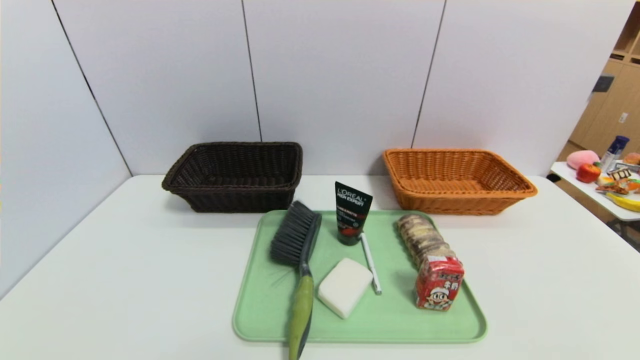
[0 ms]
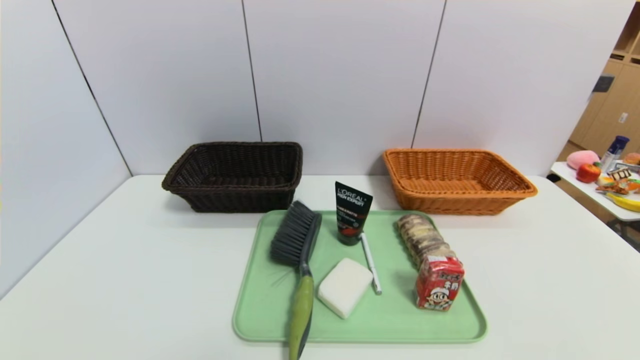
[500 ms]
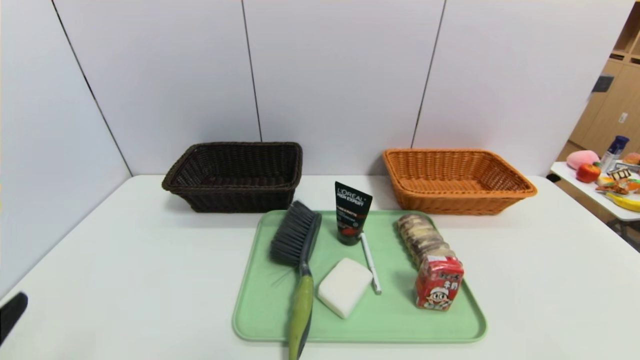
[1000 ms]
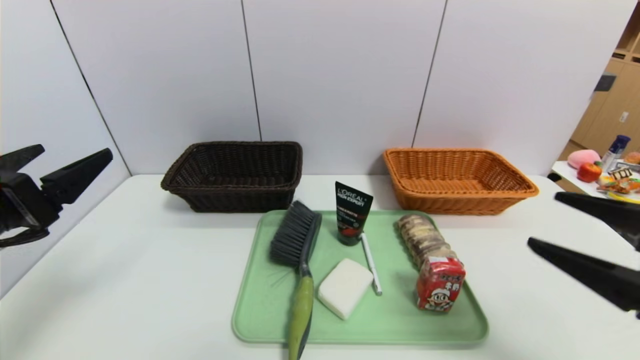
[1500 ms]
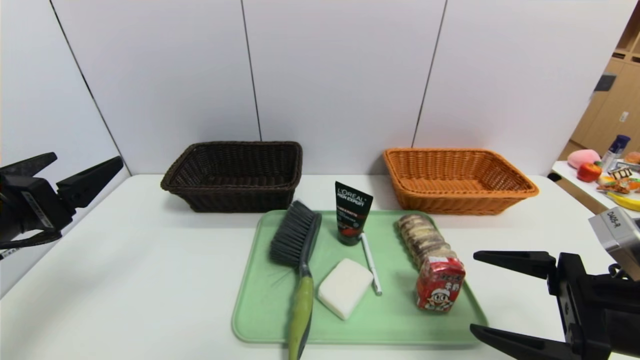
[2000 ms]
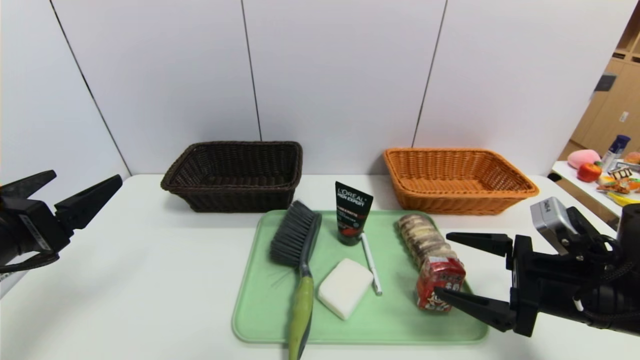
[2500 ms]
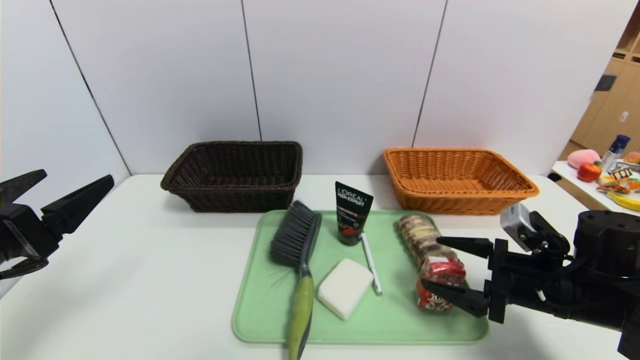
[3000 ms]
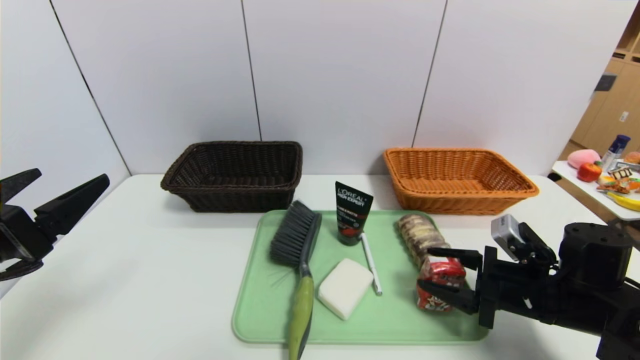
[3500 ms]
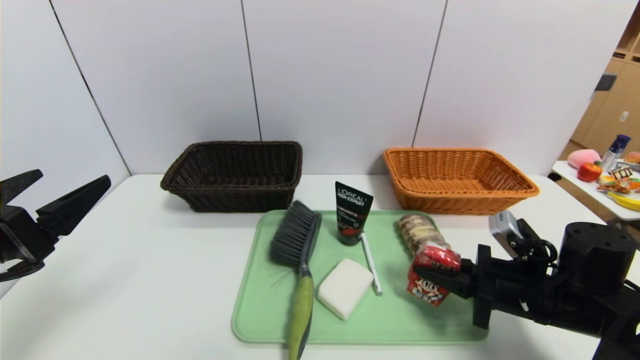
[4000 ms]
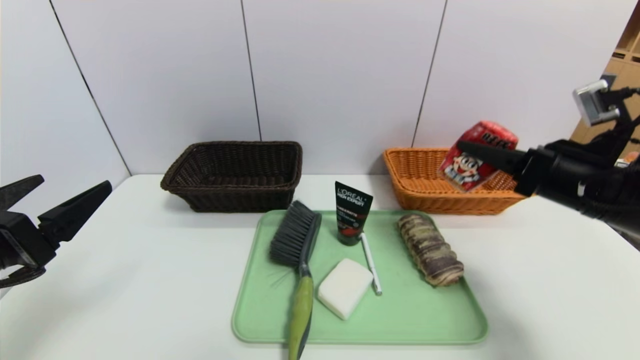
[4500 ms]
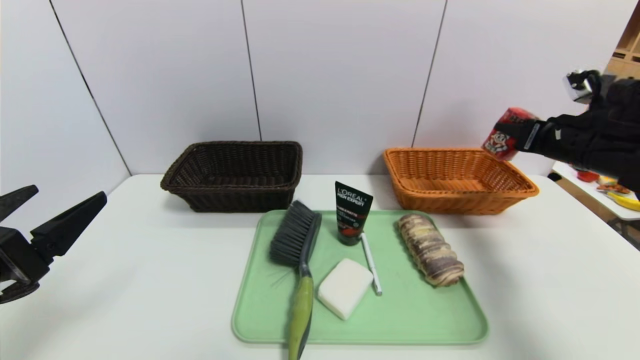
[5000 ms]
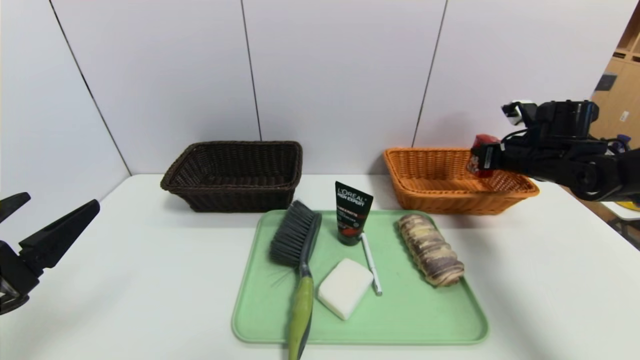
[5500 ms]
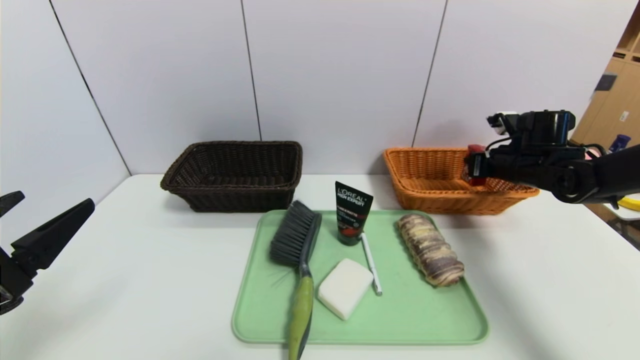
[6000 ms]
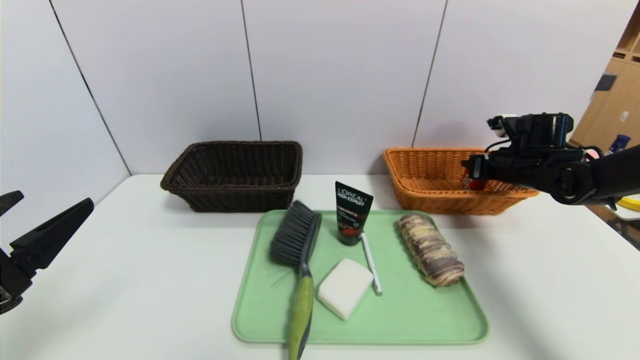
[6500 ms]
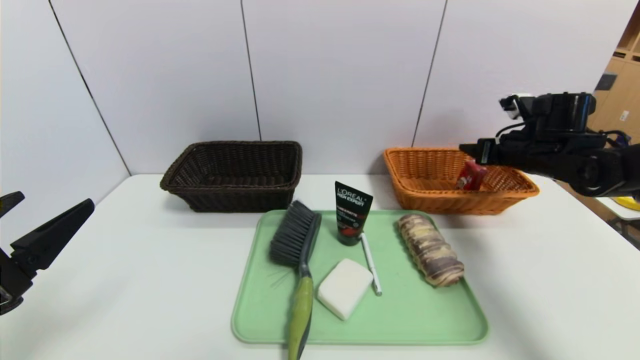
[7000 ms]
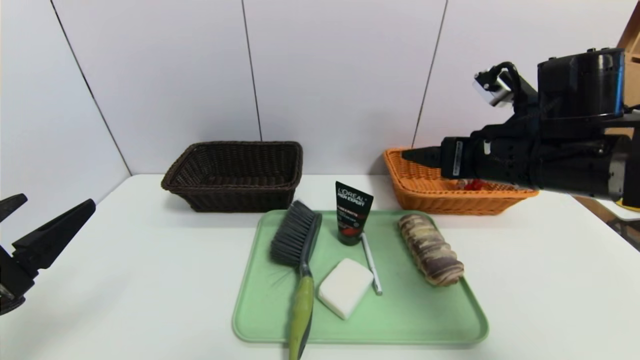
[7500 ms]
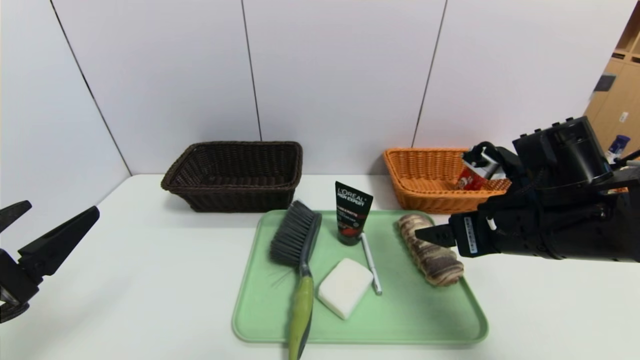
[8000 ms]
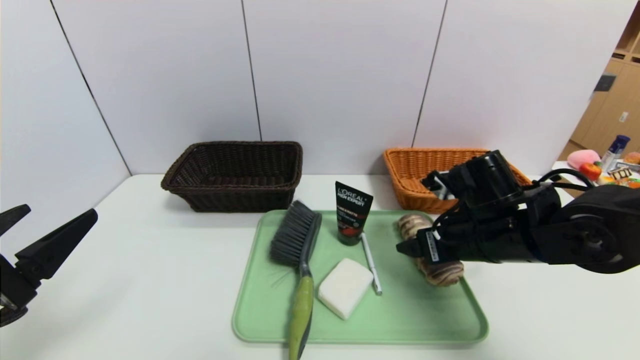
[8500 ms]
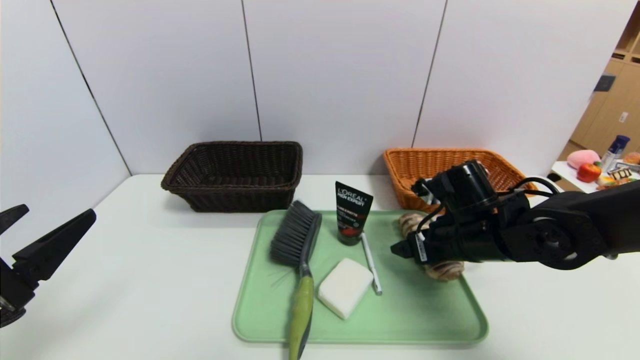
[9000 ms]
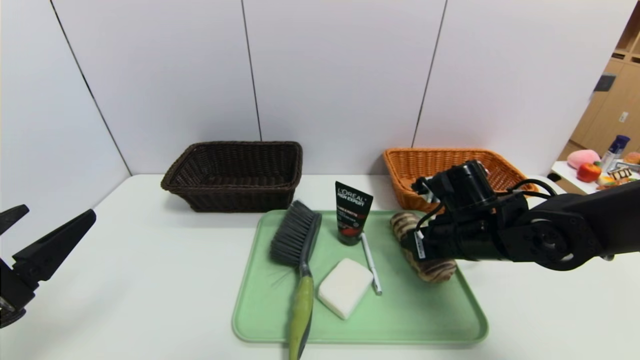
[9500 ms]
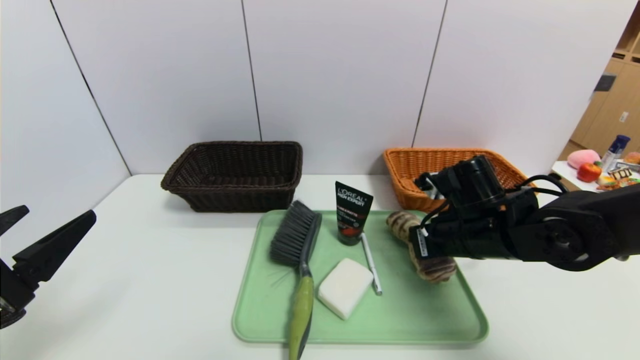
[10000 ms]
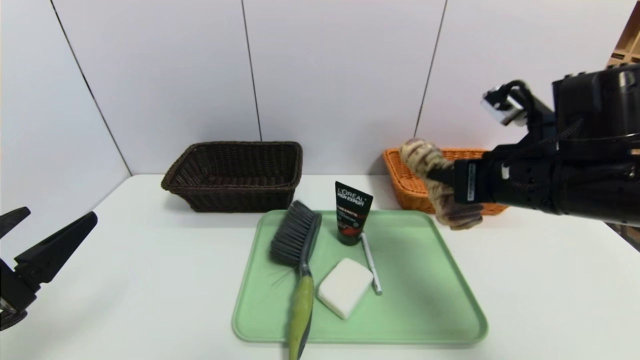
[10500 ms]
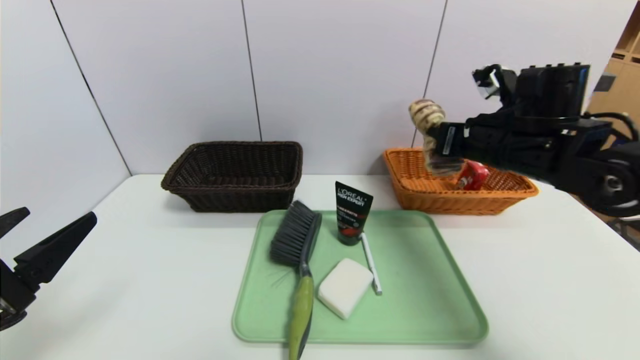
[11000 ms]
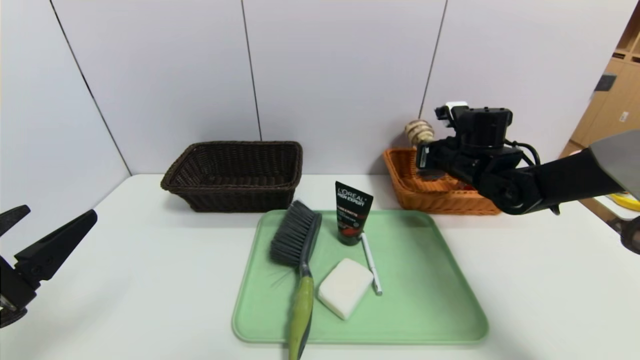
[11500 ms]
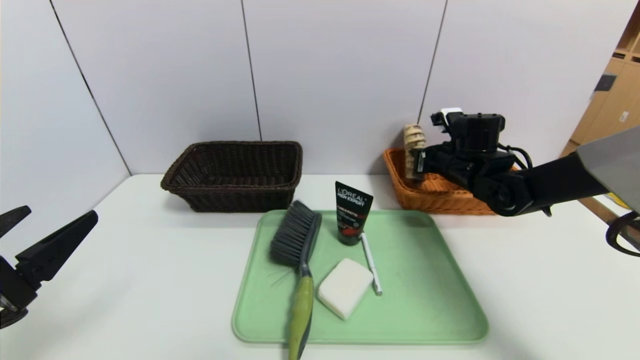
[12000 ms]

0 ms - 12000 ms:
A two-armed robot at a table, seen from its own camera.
Task of the whole recording: place the food in the right basket with the right gripper, and place the non food items in the left basket with the left gripper.
Step, 0 ms - 6500 ms: Grasp the ad milk and put it in the right basket.
0 ms - 2000 ms: Both grippers travel together forward and upward, roughly 20 cm.
2000 ms - 4000 ms: The right gripper shifts roughly 10 cm forward and downward, and closes.
4000 ms - 6000 ms: The right gripper travels forward and to the right by some 20 cm.
6000 ms - 8000 ms: The right gripper goes some 25 cm backward and to the left, and opens its fingers.
8000 ms - 10000 ms: The right gripper travels downward and forward by about 10 cm, and closes its fingers.
10000 ms - 12000 ms: The right gripper goes about 15 cm forward, and opens.

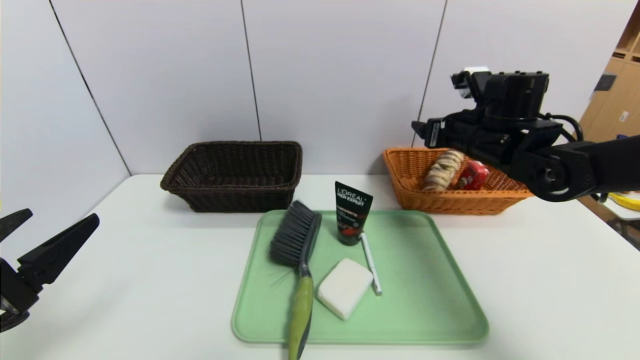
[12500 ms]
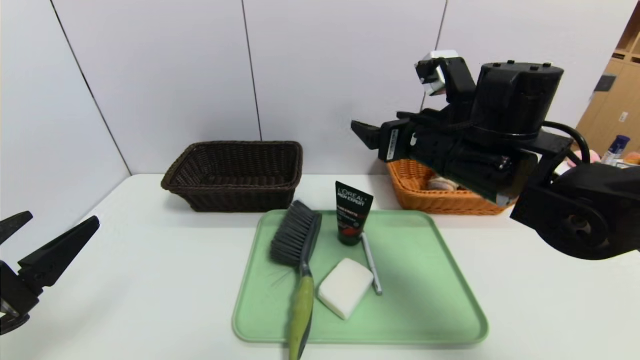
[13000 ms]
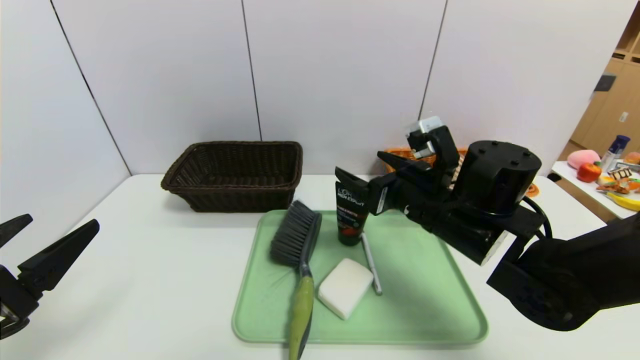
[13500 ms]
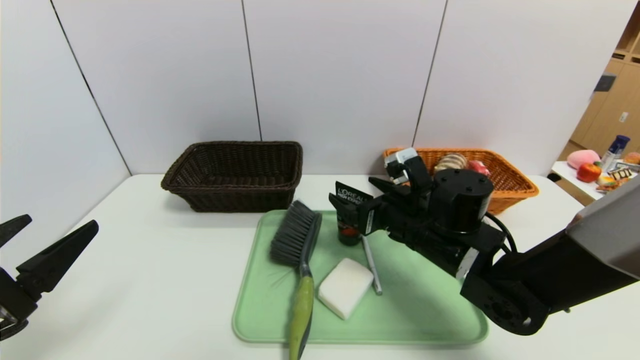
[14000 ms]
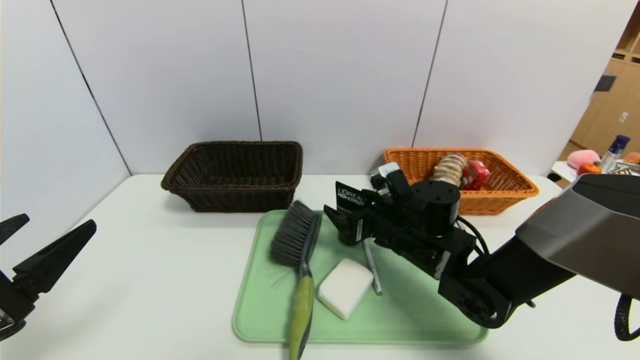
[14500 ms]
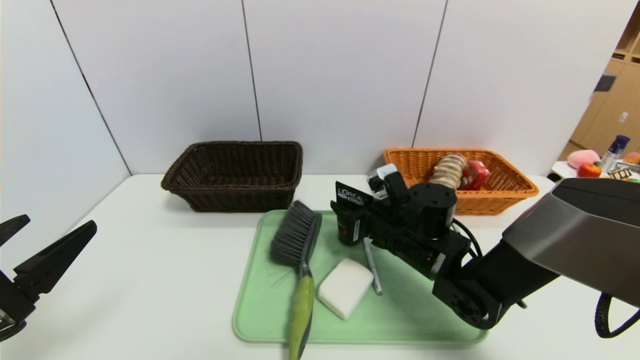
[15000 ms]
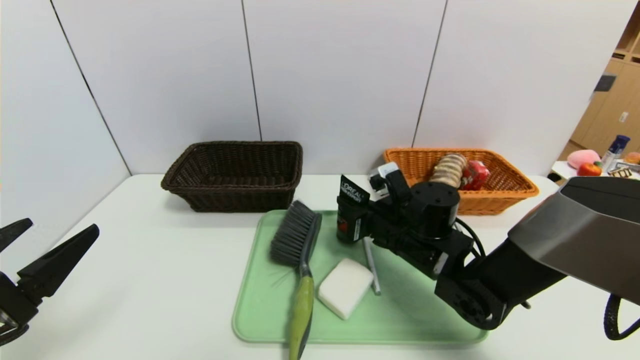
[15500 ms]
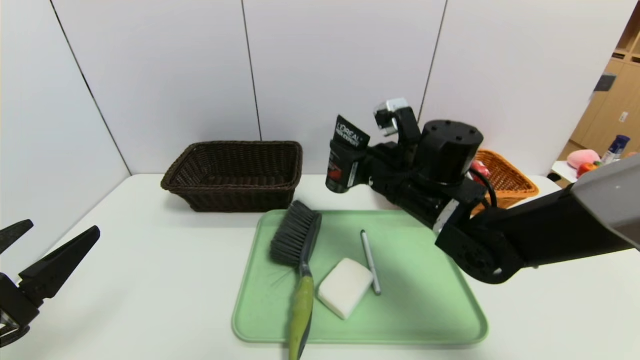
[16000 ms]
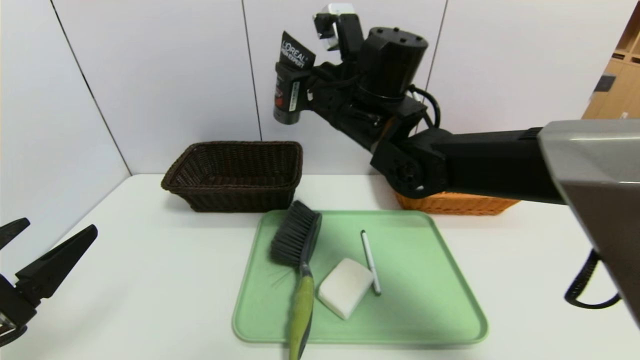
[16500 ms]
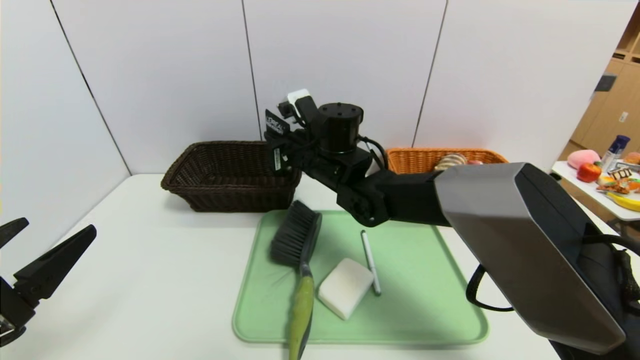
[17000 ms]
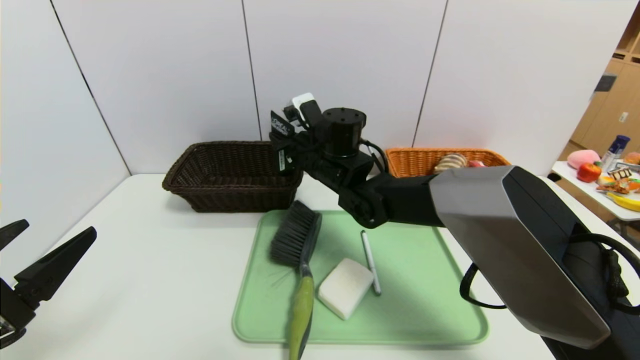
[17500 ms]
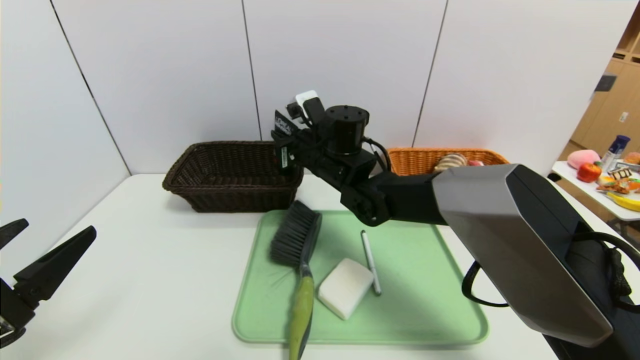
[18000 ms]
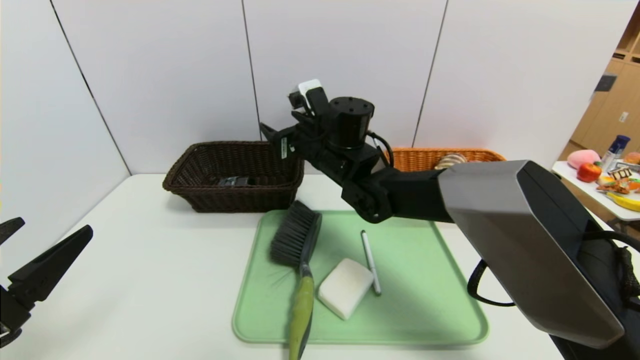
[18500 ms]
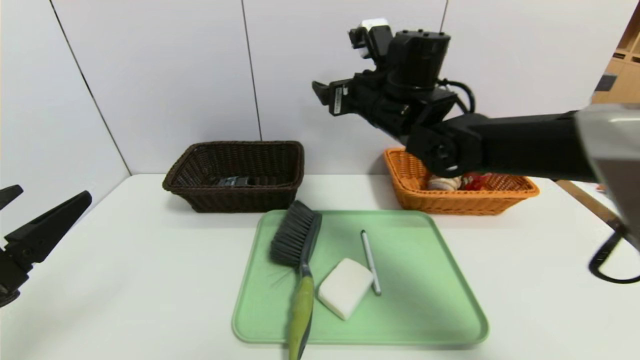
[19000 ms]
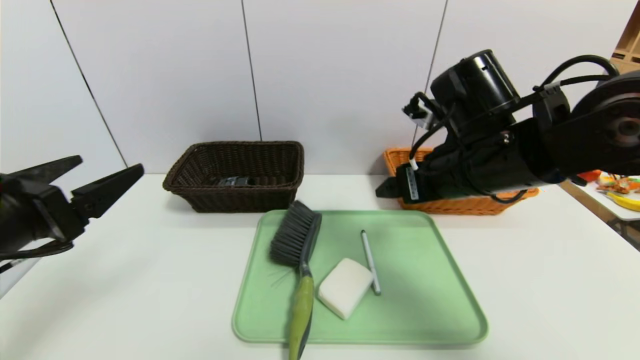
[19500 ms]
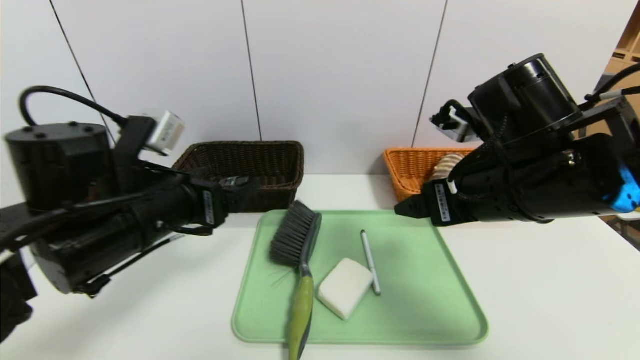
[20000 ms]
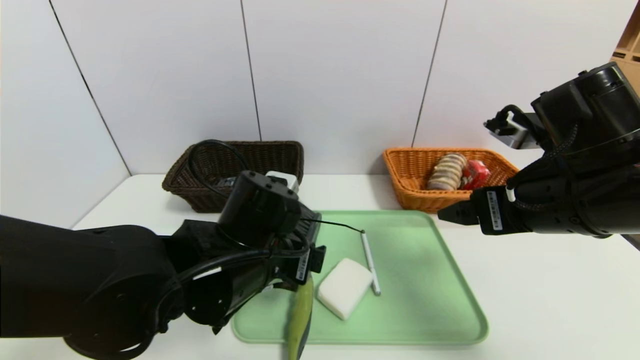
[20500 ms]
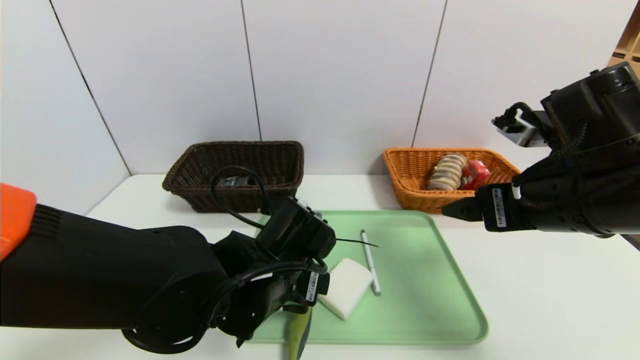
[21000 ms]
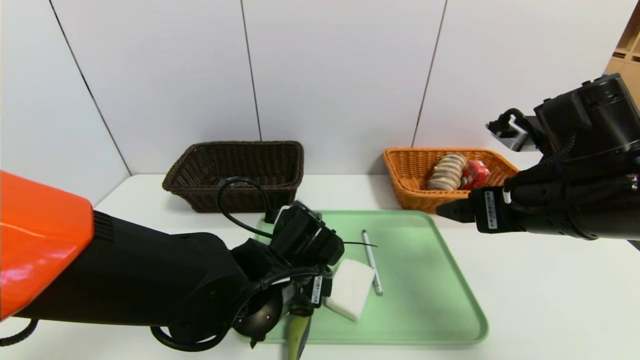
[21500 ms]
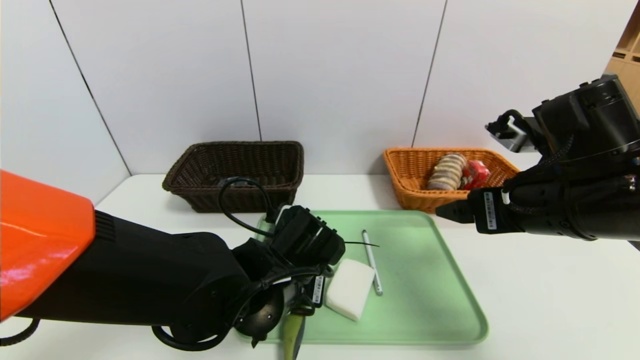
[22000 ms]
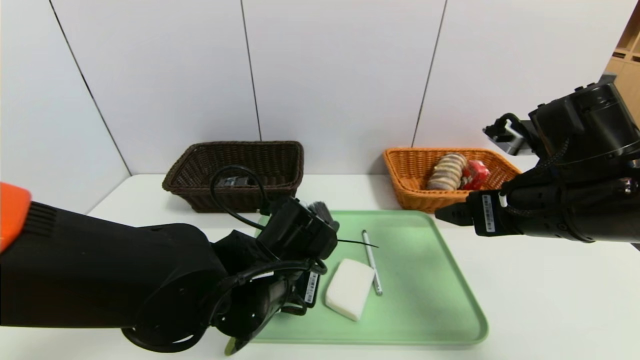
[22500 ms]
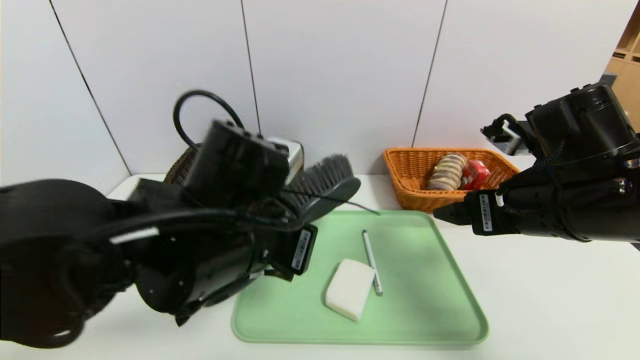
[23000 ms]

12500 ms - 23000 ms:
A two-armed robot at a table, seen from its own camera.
Task of the whole recording: place the food in the right basket with the right gripper, and place the non food items in the left basket with the left gripper.
12500 ms - 14500 ms: The right gripper is displaced downward, to the left and backward by roughly 20 cm.
14500 ms - 16500 ms: The right gripper goes about 20 cm upward and to the left, and closes.
16500 ms - 19000 ms: The right gripper travels to the right by some 5 cm, moves approximately 10 cm downward and comes back, and opens.
19000 ms - 21000 ms: The left gripper heads to the right and forward, covering roughly 25 cm; the right gripper shifts some 20 cm backward and to the right.
21000 ms - 23000 ms: The left gripper shifts some 10 cm upward, and closes.
